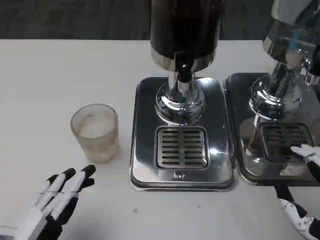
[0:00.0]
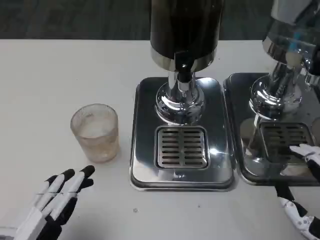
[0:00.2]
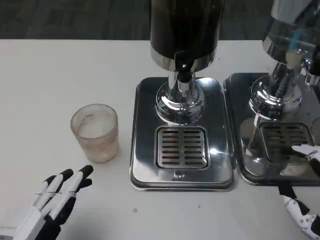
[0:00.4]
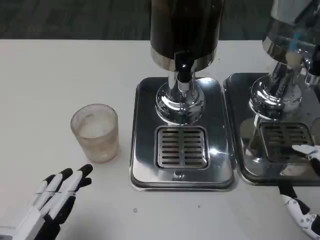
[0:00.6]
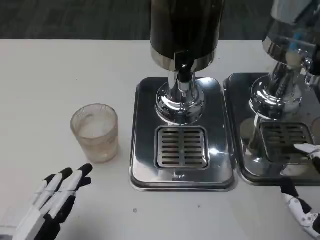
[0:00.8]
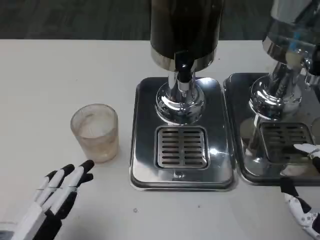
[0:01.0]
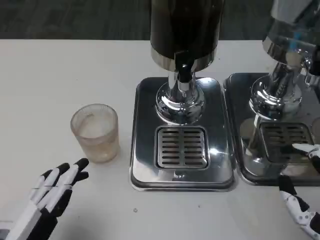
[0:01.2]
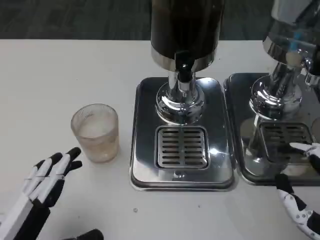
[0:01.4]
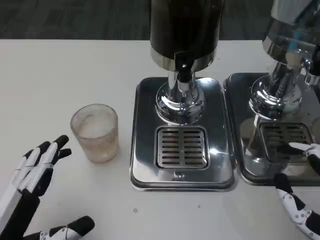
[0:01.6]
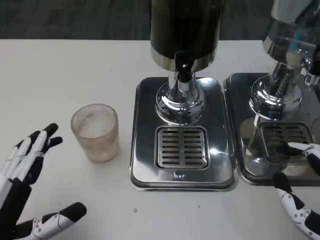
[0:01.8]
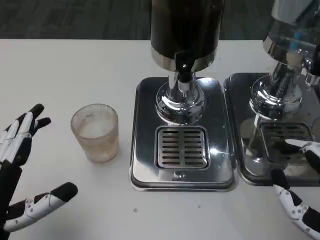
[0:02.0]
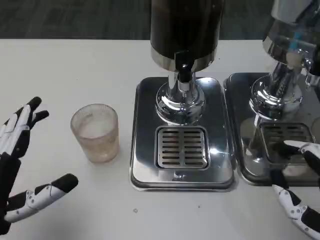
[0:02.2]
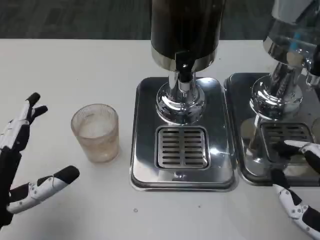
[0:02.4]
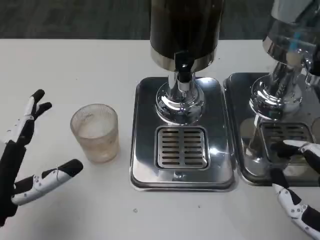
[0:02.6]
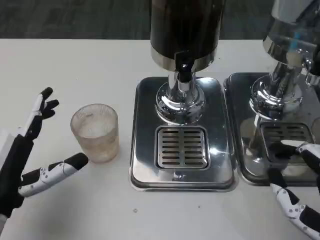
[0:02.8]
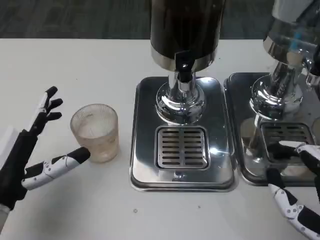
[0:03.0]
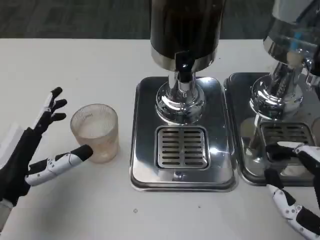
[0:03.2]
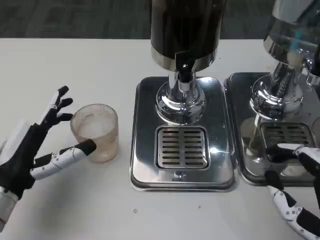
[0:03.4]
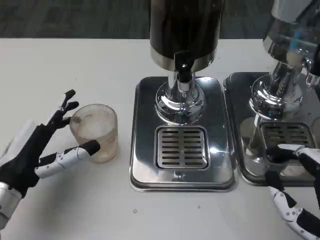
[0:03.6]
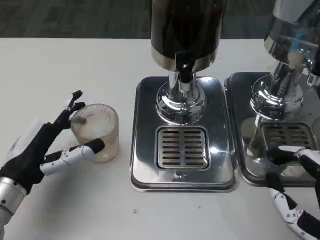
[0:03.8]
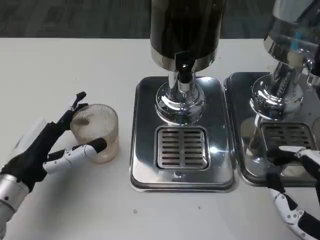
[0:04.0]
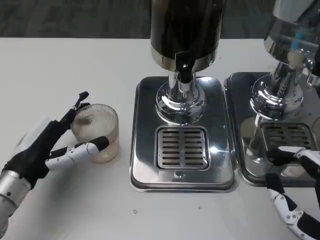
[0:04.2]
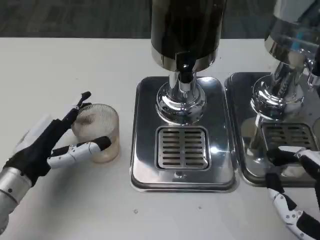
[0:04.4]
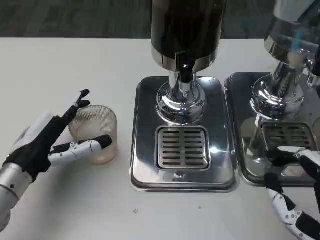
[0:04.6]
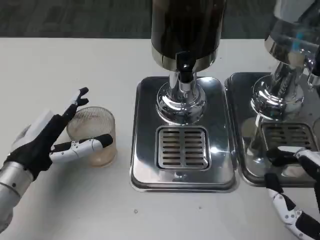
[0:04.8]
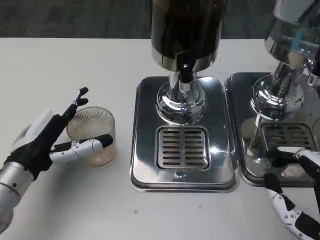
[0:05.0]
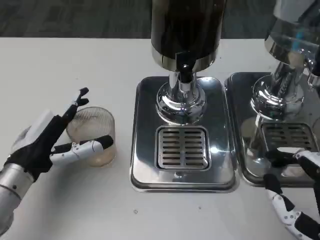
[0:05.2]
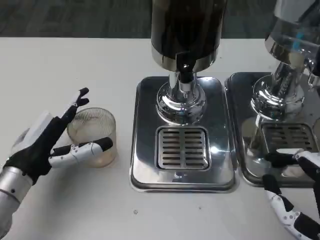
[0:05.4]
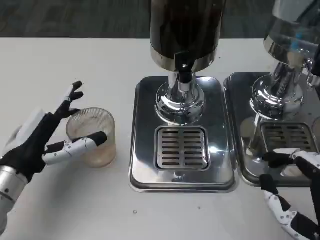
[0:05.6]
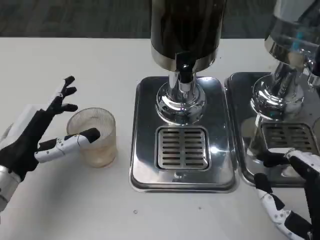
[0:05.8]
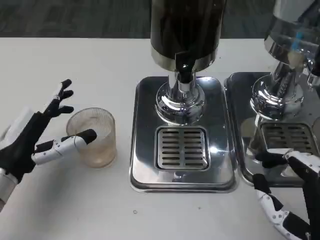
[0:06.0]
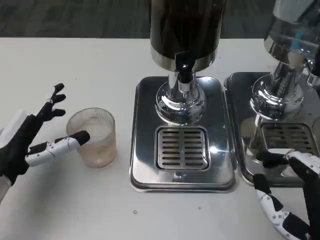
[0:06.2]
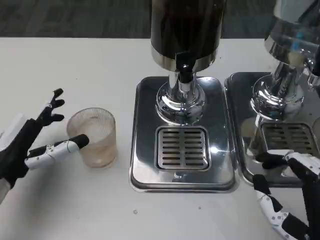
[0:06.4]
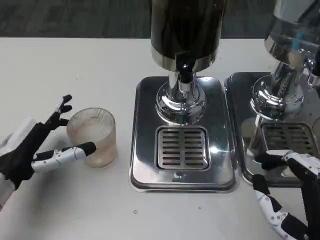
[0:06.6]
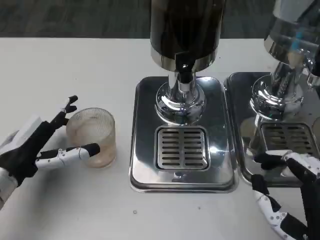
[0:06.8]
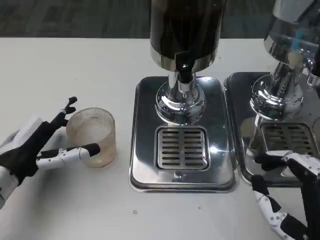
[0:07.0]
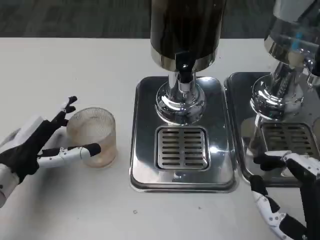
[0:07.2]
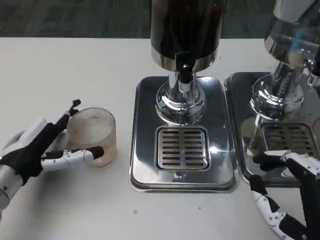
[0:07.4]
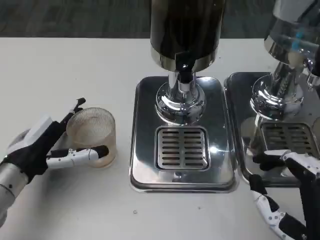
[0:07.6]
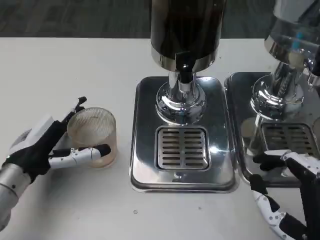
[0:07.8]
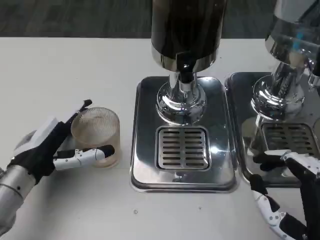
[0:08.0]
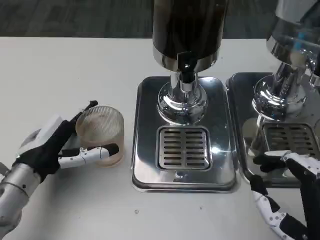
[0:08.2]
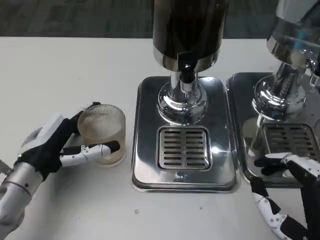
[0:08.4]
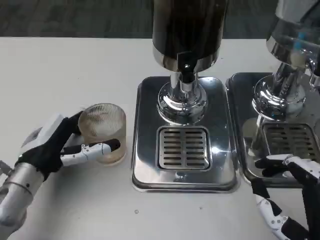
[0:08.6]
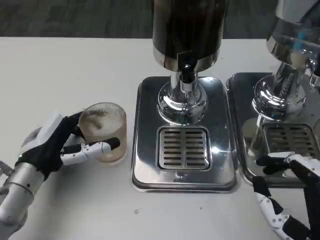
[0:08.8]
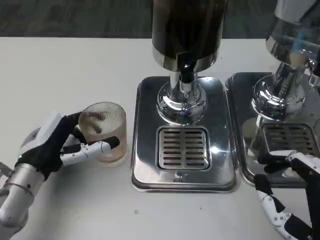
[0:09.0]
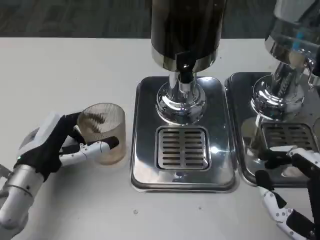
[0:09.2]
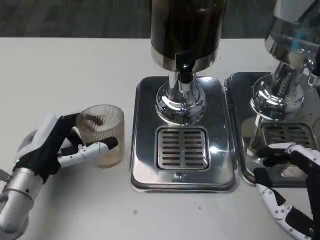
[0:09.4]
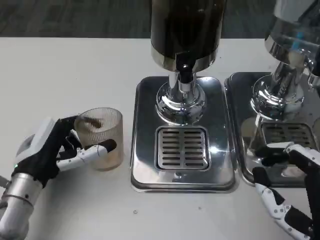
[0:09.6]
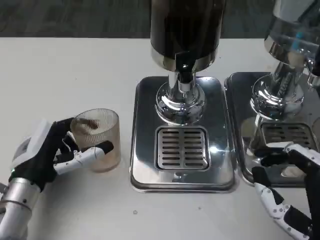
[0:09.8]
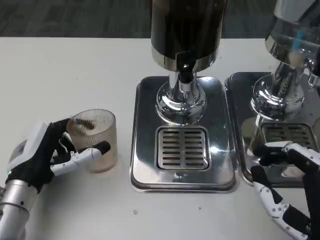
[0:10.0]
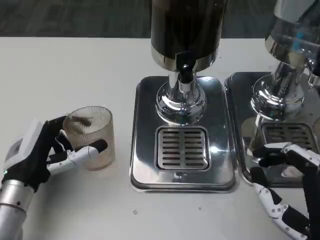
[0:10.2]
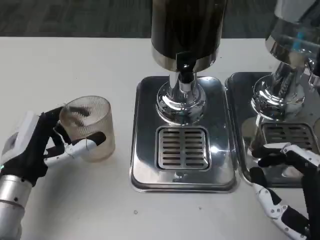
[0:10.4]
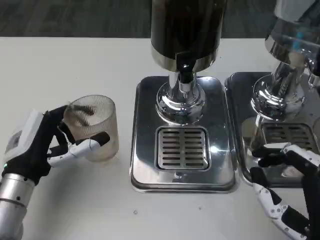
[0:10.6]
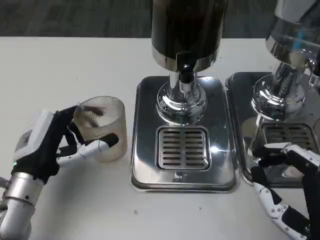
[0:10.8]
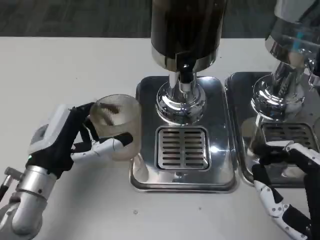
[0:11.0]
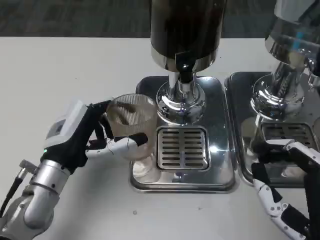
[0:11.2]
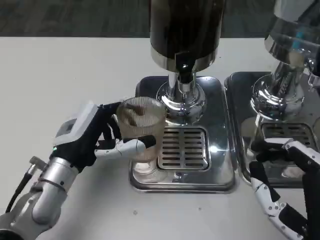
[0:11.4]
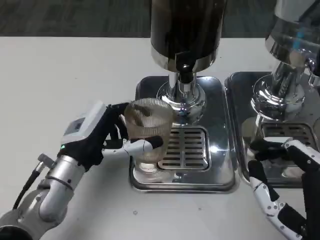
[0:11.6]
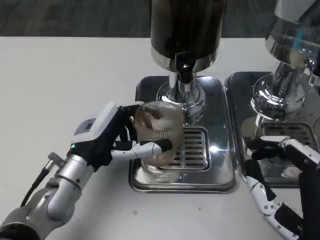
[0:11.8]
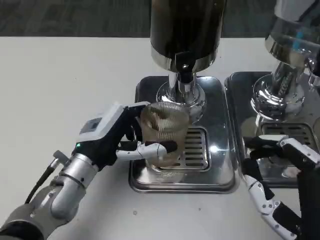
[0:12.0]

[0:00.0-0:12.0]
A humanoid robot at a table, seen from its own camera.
Task of the whole recording: Grasp the cup under the faucet to collect the drink, then remove the cup.
0:00.0 to 0:01.6: The hands make only small movements.
0:01.6 to 0:03.0: The left hand is displaced forward by about 10 cm.
0:03.0 to 0:04.4: The left hand moves forward, some 5 cm.
0:04.4 to 0:10.4: There are only small adjustments of the hands.
0:10.4 to 0:12.0: The left hand moves to the right, some 10 cm.

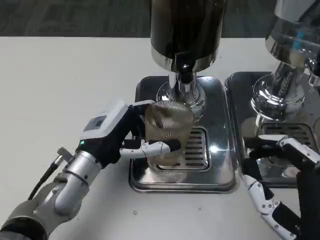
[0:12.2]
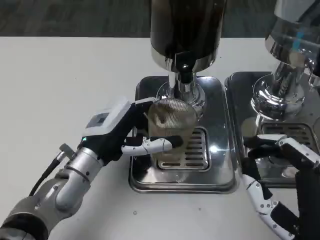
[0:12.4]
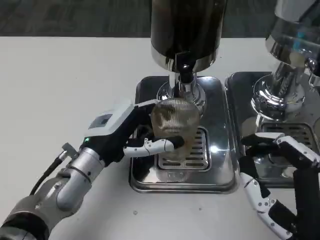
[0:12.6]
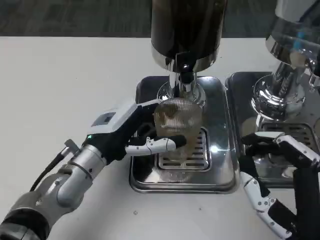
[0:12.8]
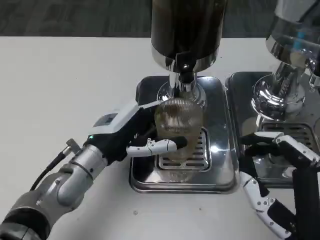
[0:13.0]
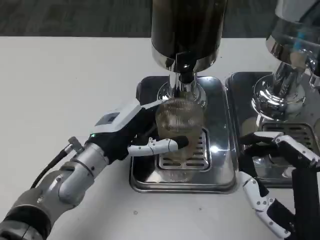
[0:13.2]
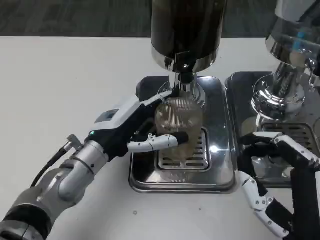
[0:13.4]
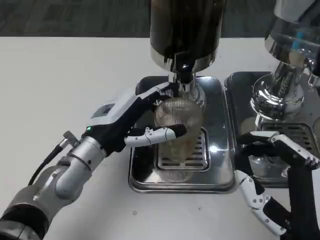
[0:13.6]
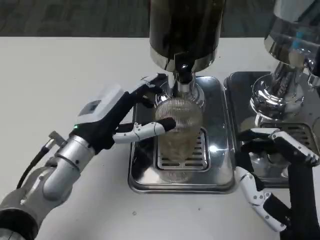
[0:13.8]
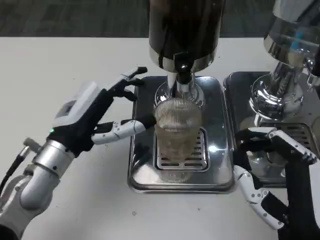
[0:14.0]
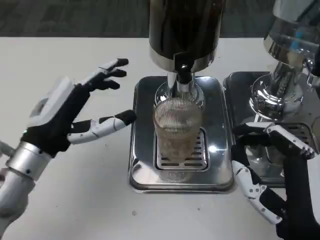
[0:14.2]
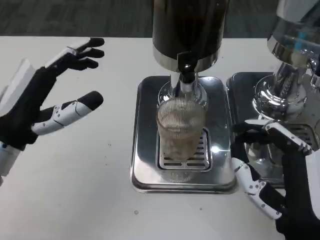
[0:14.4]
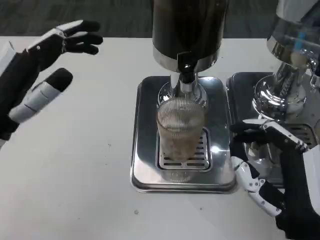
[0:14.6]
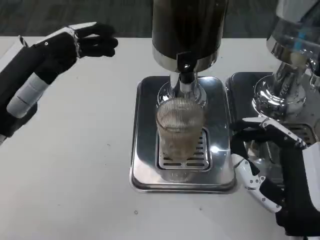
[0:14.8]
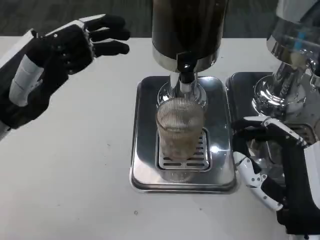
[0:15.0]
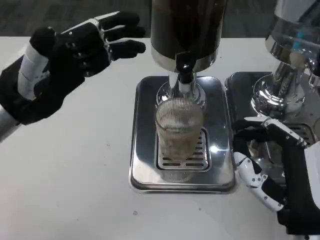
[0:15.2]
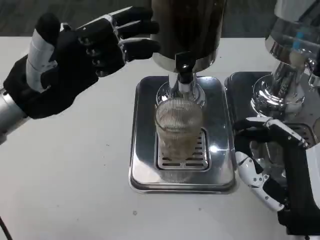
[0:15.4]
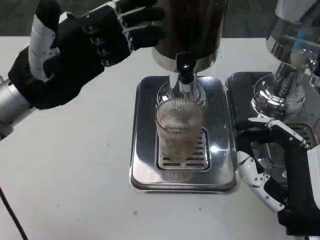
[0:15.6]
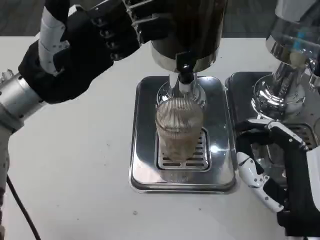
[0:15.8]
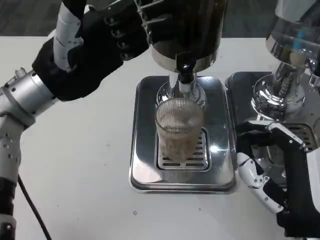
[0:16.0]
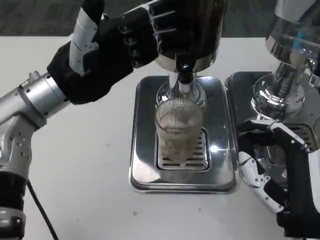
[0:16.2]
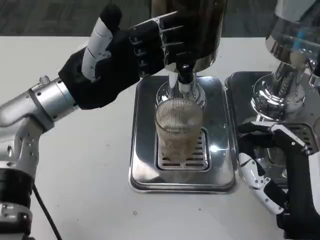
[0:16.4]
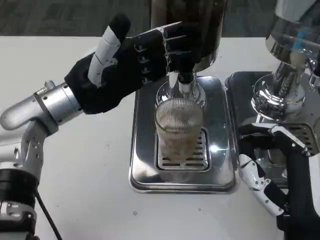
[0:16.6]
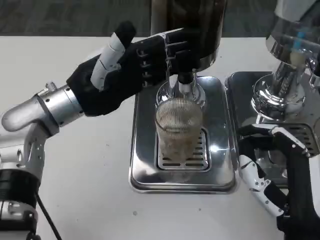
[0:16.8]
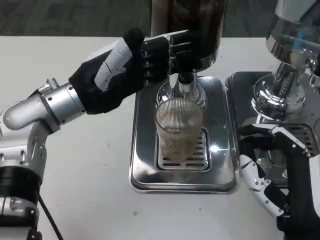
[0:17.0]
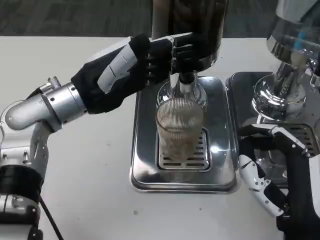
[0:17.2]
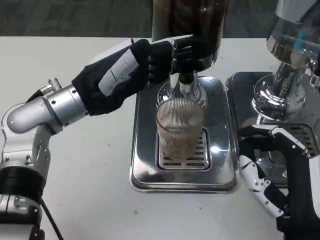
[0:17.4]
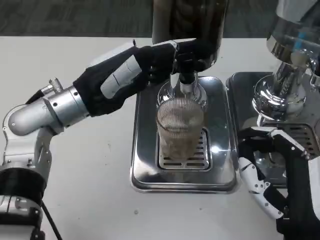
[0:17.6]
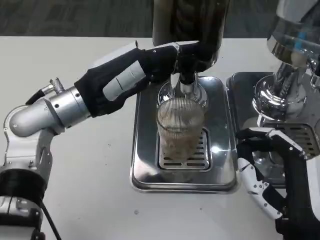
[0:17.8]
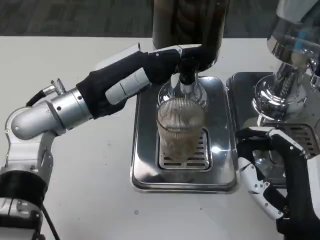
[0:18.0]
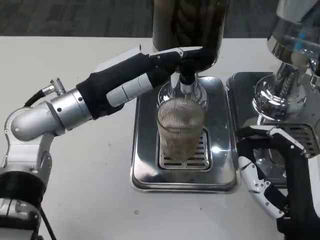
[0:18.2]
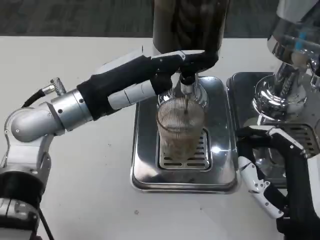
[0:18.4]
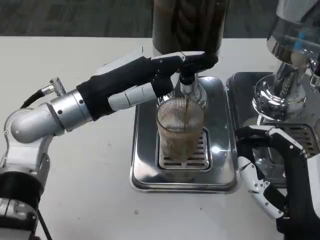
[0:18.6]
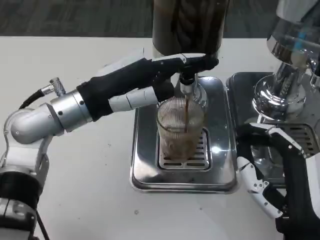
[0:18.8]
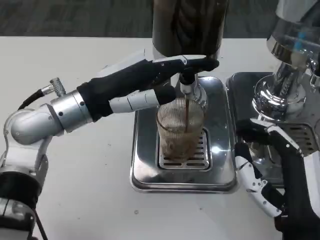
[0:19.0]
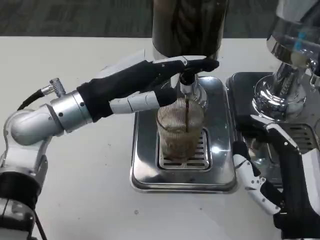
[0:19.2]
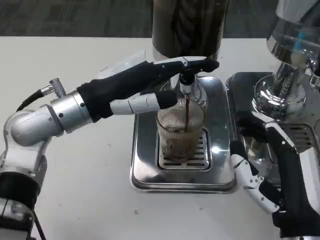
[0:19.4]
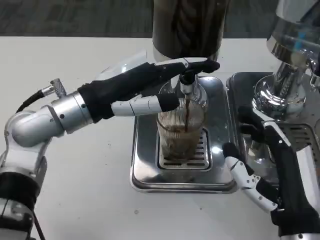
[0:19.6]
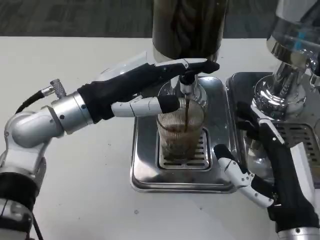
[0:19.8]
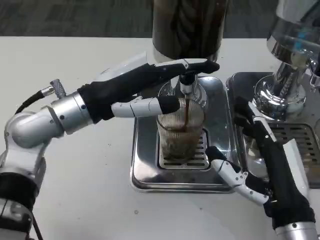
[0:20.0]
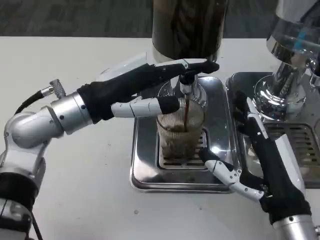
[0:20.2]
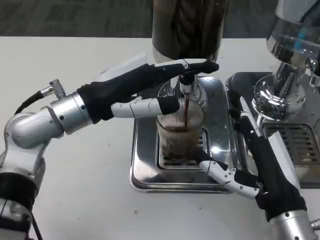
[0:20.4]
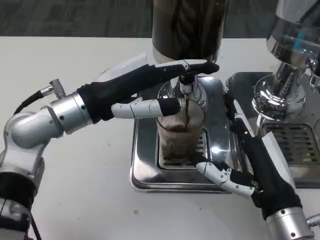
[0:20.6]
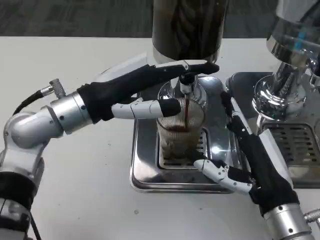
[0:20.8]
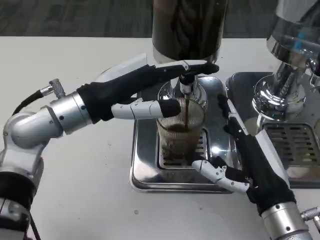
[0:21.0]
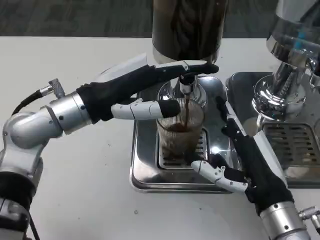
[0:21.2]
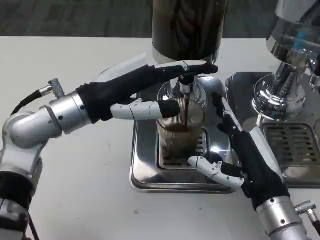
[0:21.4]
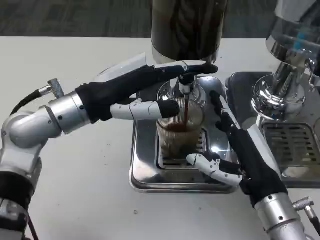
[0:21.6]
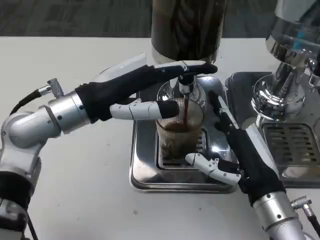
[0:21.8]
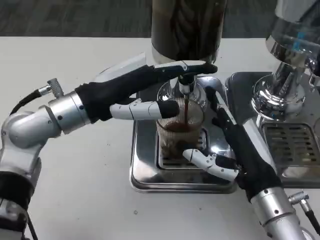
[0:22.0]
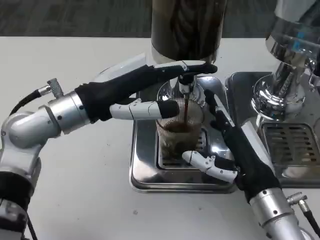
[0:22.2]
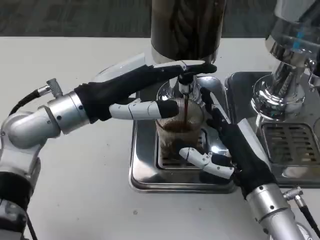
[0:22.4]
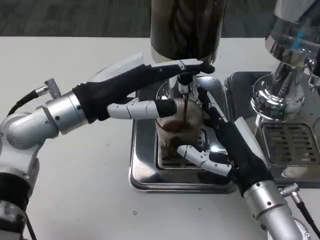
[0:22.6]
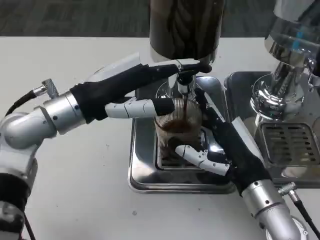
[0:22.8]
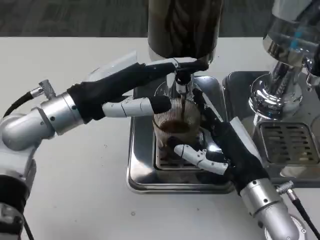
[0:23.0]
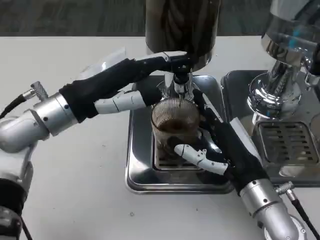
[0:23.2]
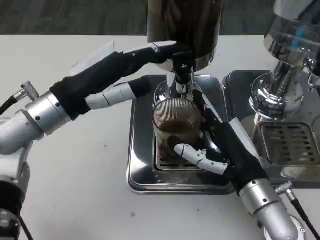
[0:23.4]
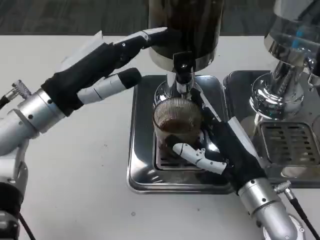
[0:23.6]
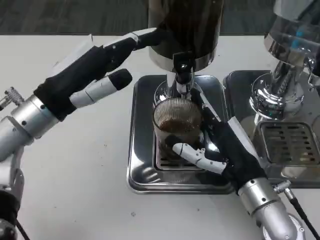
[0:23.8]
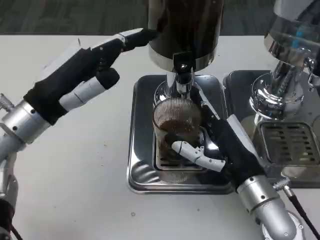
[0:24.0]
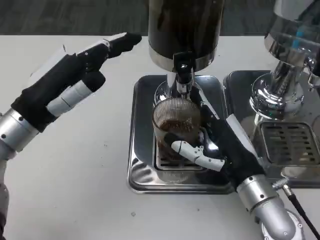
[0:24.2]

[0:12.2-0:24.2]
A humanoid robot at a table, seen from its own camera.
Task of the whole recording: Grasp the cup under the faucet to collect the drink, then remove the cup.
0:13.8 to 0:15.2: The left hand is displaced upward and to the left by about 15 cm.
0:15.2 to 0:16.6: The left hand is displaced to the right by about 5 cm.
0:18.2 to 0:19.8: The hands stay close to where they were, moving slightly.
0:19.8 to 0:21.2: The hands move only a little.
0:21.2 to 0:22.6: The hands stay close to where they were, moving slightly.
0:22.6 to 0:24.2: The left hand travels to the left by some 5 cm.
